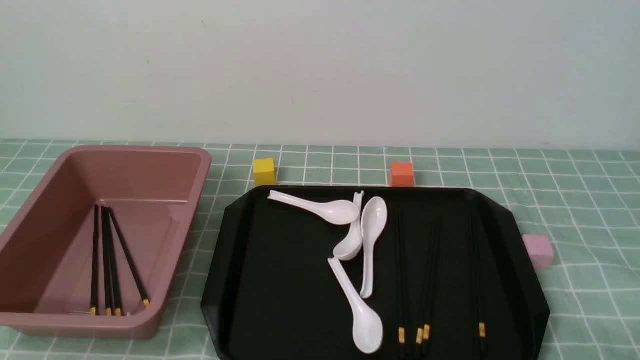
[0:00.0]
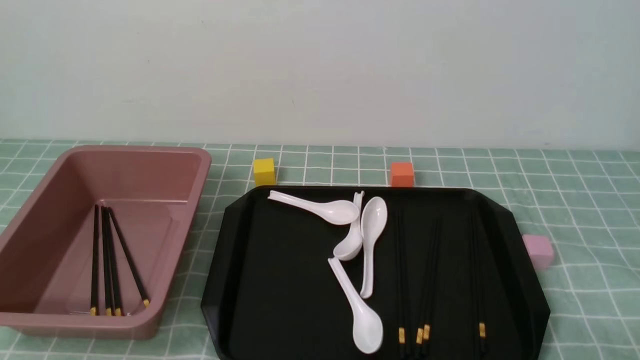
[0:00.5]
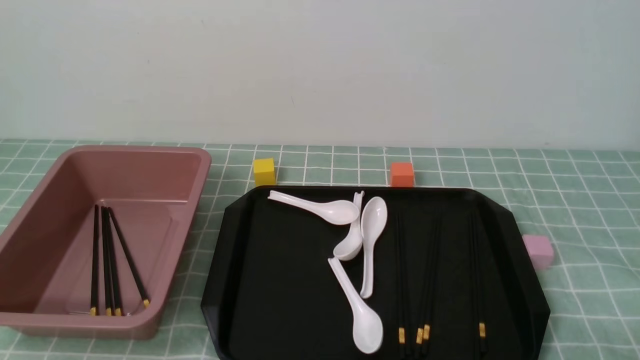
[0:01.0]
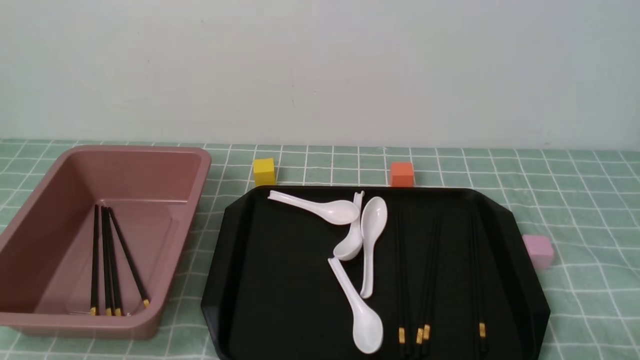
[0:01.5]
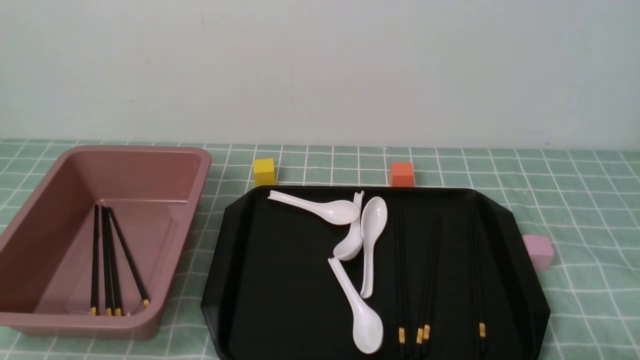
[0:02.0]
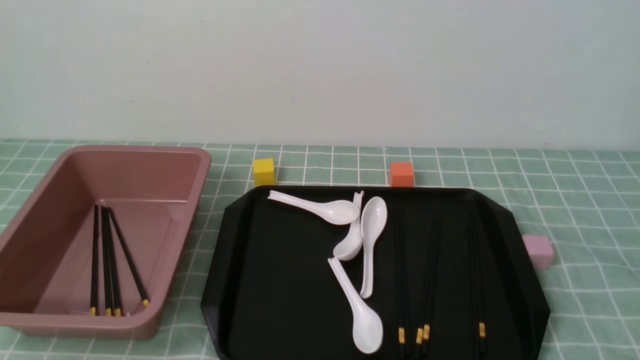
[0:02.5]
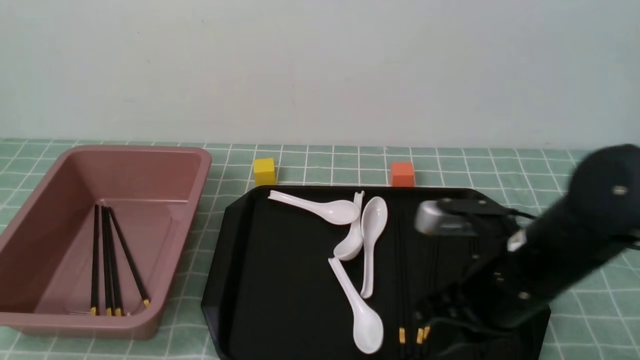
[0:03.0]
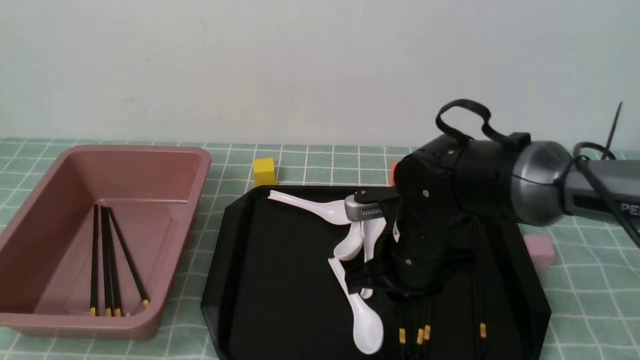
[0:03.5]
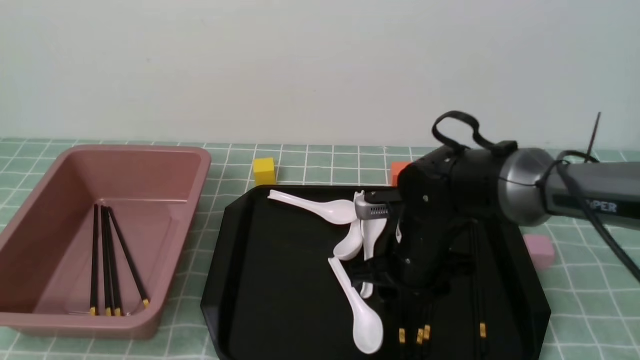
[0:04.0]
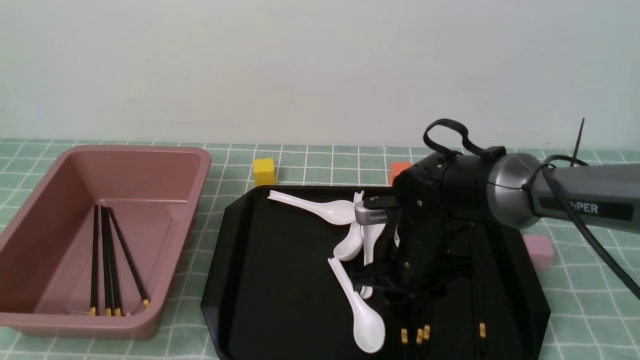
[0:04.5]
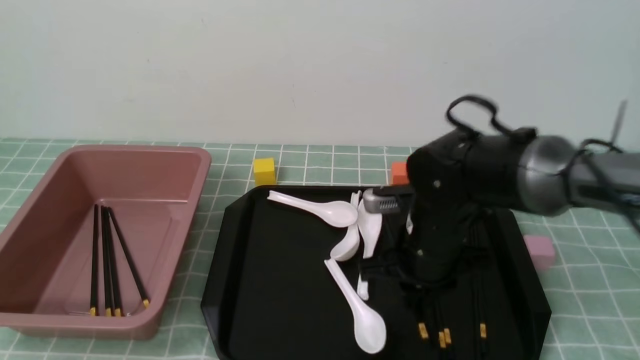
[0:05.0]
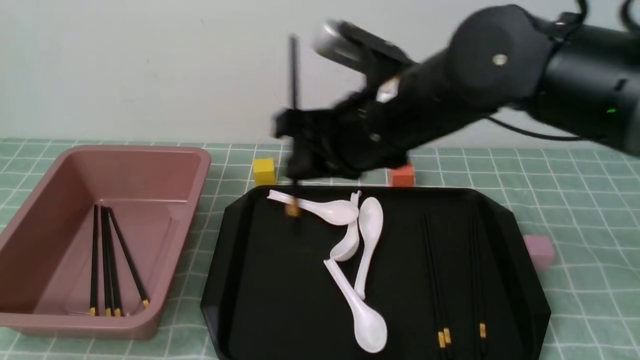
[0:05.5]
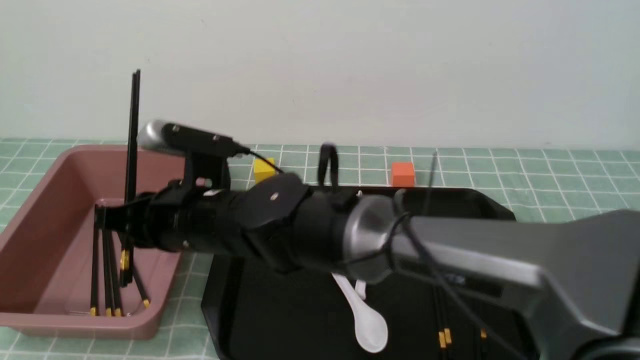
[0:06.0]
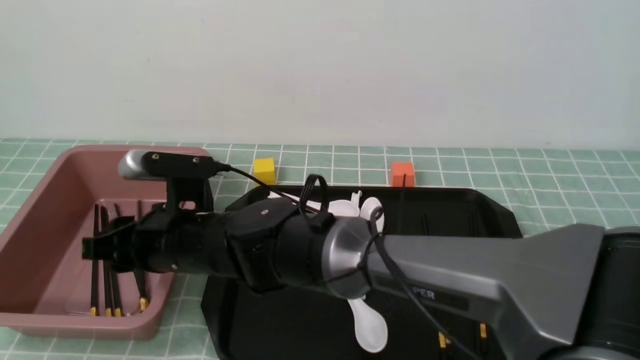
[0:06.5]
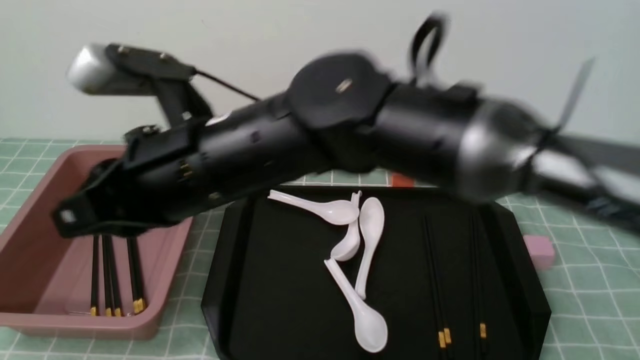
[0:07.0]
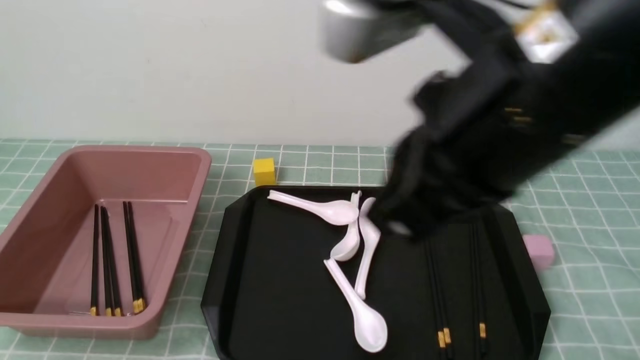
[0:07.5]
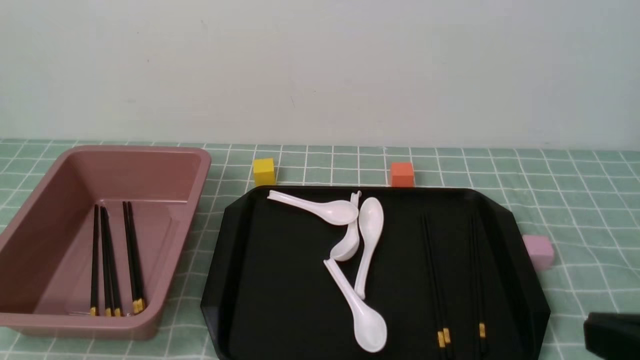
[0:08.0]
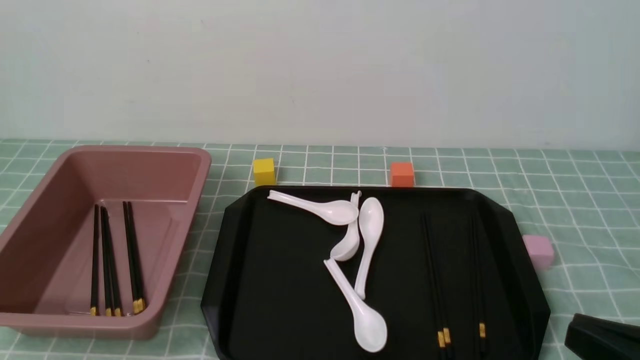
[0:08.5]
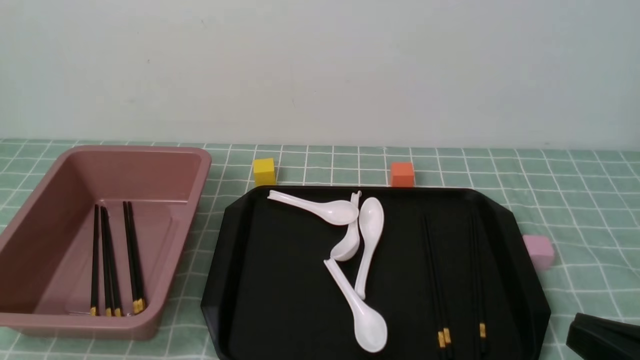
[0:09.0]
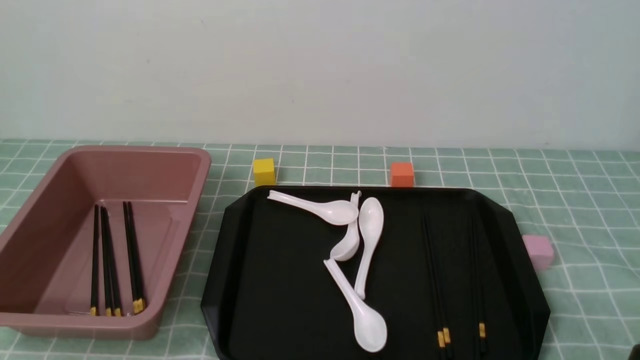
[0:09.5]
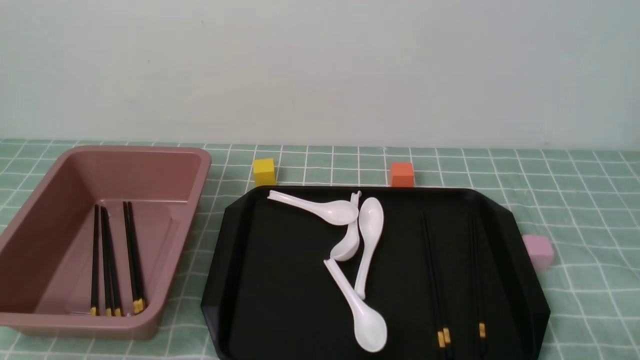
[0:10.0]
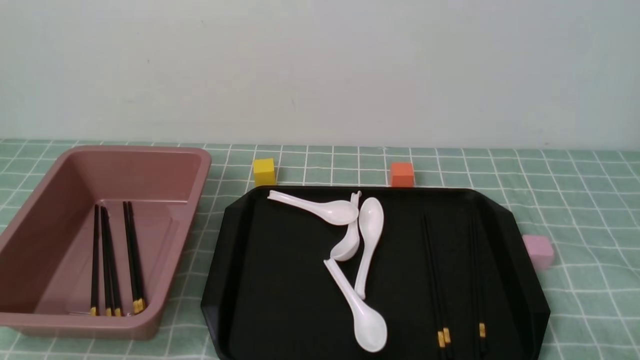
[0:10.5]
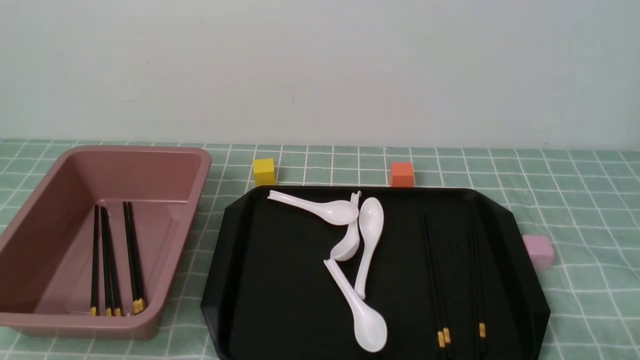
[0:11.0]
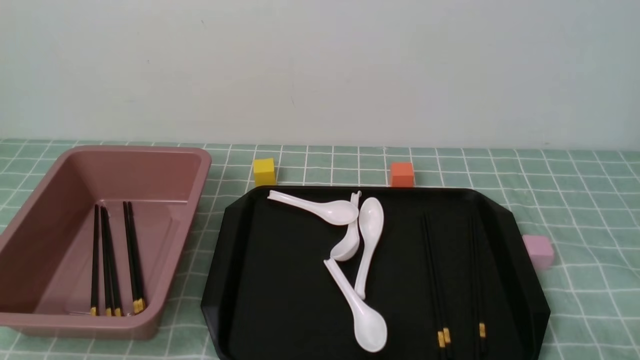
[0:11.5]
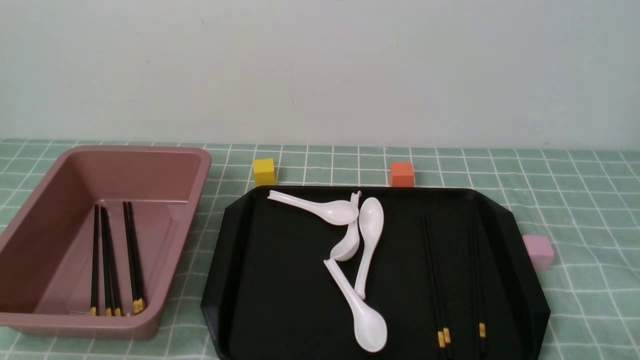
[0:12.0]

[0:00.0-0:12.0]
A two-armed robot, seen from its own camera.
Step, 0:00.0 to 0:05.0: use the right arm to grab a pair of chopsticks.
Step, 0:05.5 to 0:06.5: use the right arm to put the chopsticks into the lunch box.
0:02.0 to 0:04.0: The right gripper goes some 35 cm forward and to the left, and closes, then opens again.
0:04.0 to 0:06.0: The right gripper is displaced to the left by some 20 cm, and closes its fingers.
0:06.0 to 0:08.0: The right gripper shifts about 40 cm to the right and backward, and closes.
0:08.0 to 0:10.0: The right gripper travels downward and to the right by about 15 cm.
